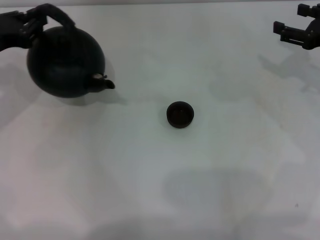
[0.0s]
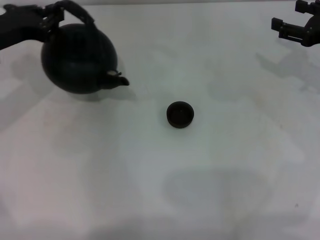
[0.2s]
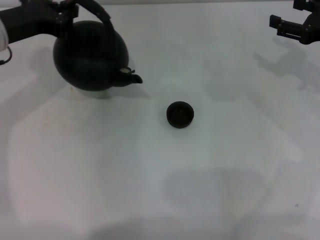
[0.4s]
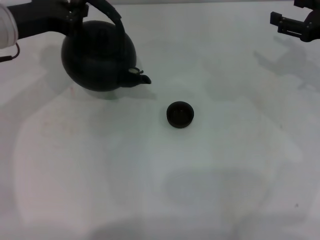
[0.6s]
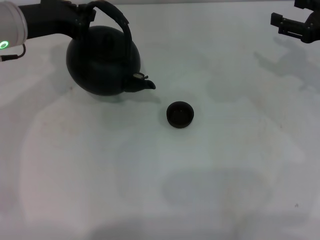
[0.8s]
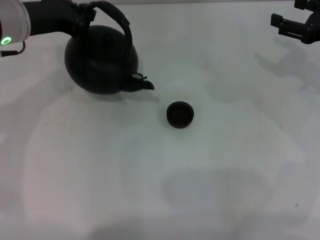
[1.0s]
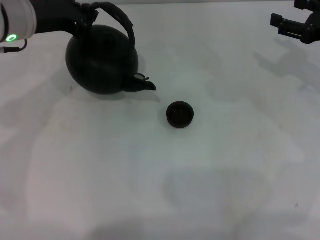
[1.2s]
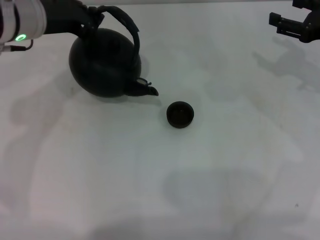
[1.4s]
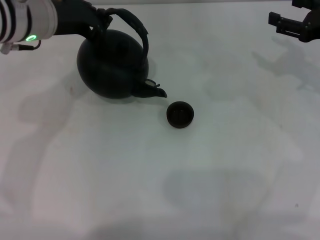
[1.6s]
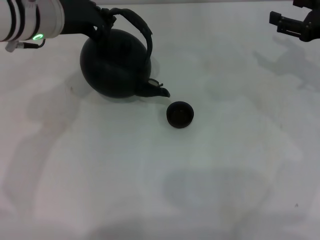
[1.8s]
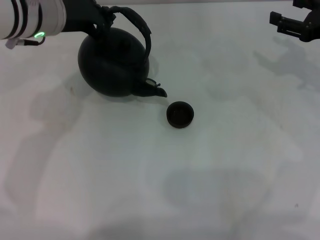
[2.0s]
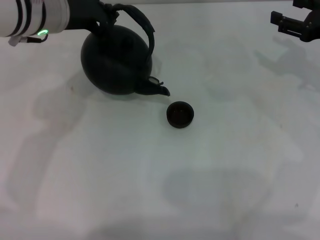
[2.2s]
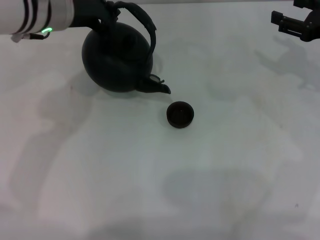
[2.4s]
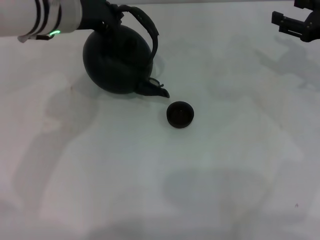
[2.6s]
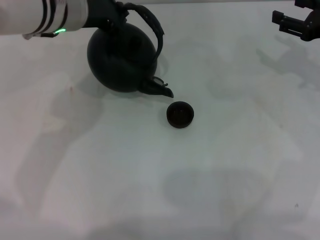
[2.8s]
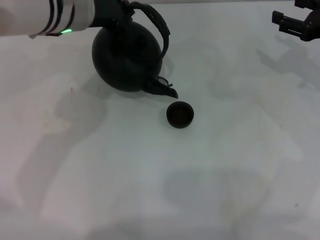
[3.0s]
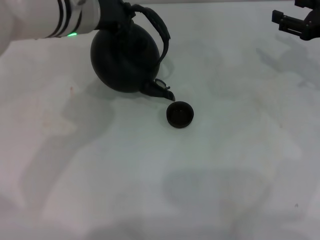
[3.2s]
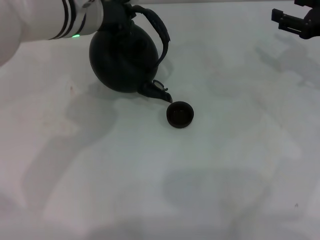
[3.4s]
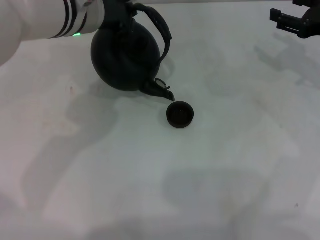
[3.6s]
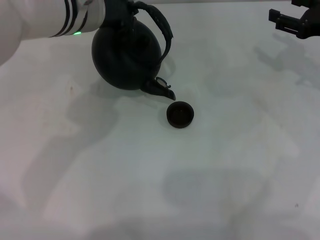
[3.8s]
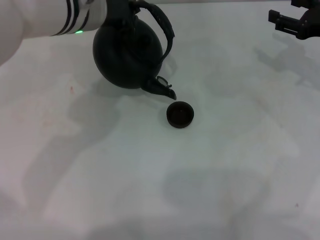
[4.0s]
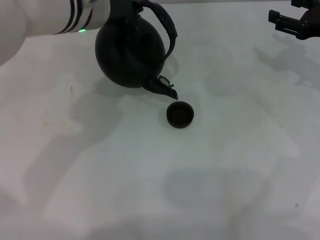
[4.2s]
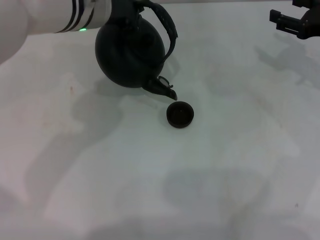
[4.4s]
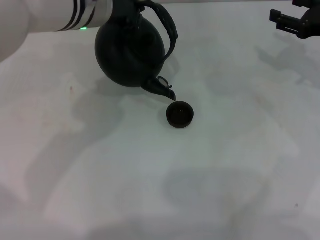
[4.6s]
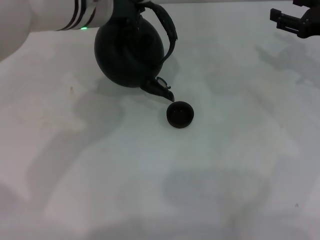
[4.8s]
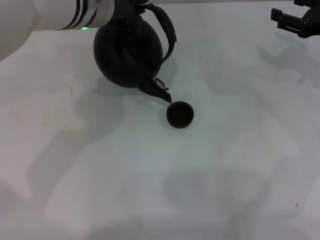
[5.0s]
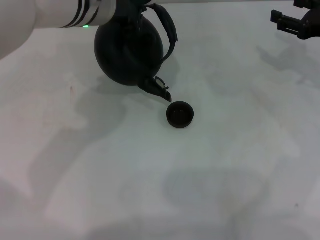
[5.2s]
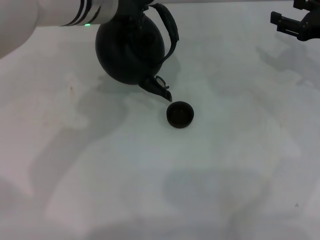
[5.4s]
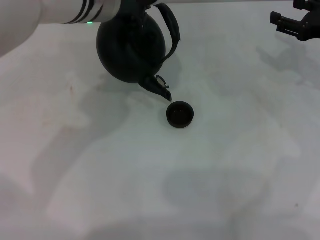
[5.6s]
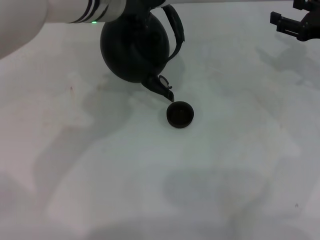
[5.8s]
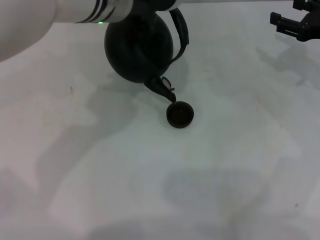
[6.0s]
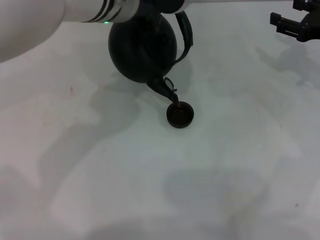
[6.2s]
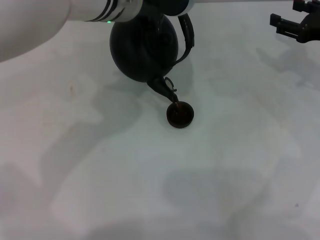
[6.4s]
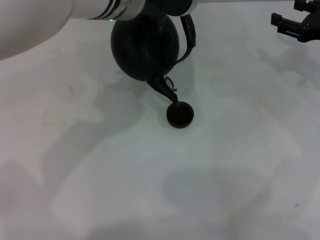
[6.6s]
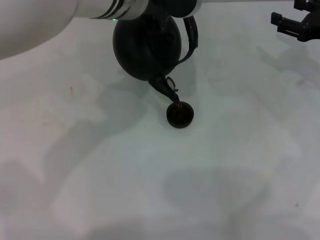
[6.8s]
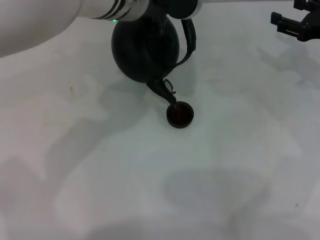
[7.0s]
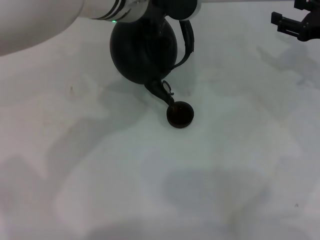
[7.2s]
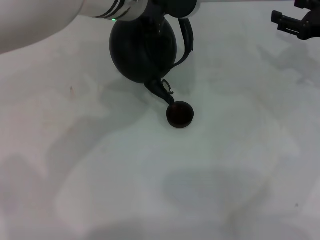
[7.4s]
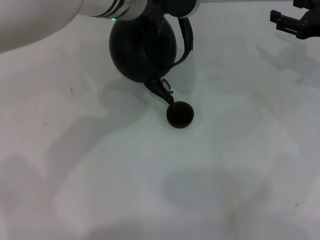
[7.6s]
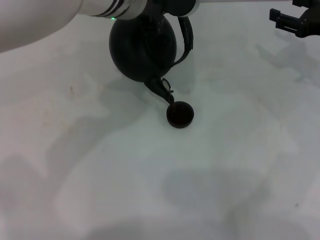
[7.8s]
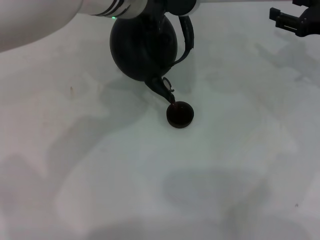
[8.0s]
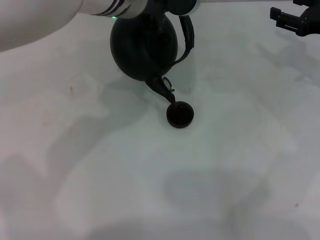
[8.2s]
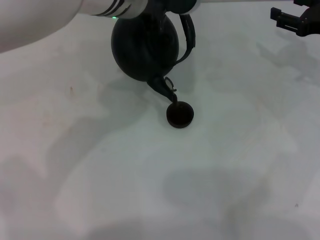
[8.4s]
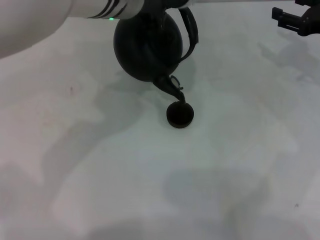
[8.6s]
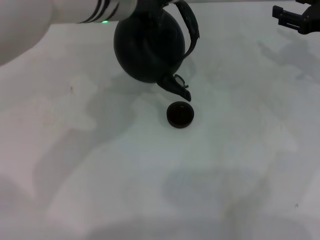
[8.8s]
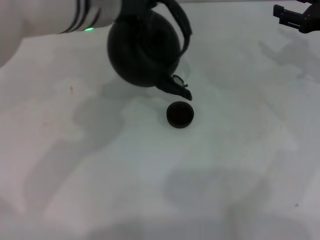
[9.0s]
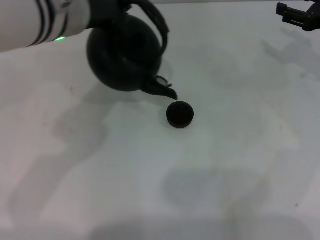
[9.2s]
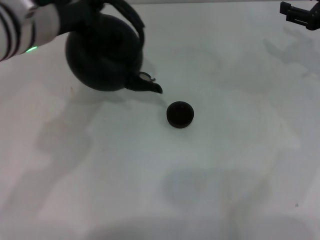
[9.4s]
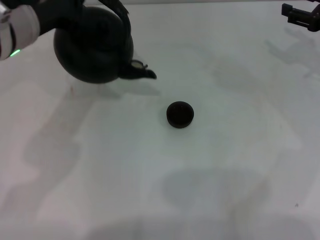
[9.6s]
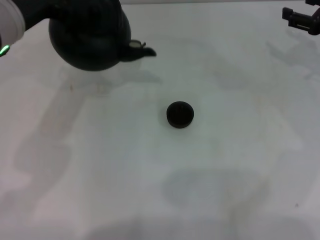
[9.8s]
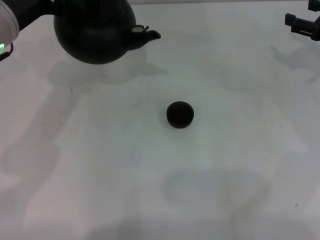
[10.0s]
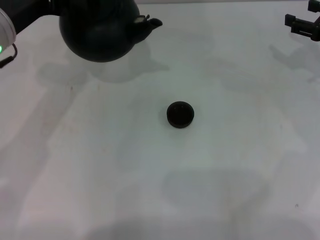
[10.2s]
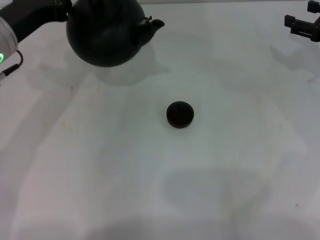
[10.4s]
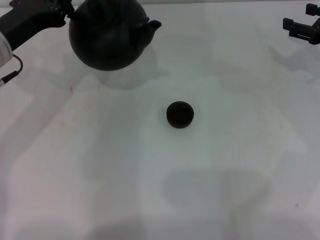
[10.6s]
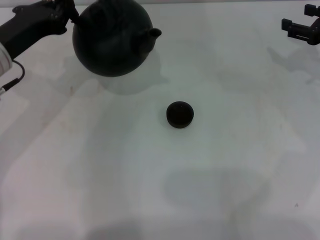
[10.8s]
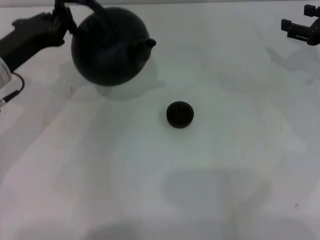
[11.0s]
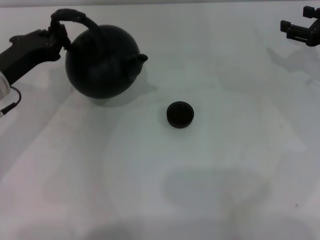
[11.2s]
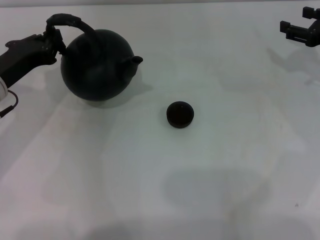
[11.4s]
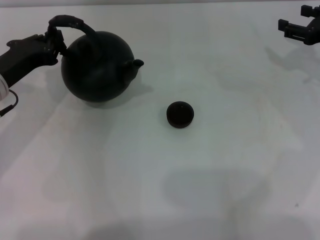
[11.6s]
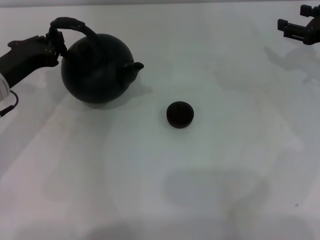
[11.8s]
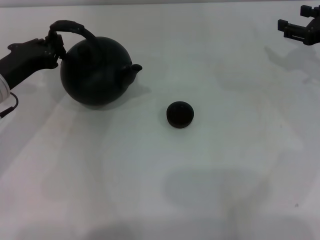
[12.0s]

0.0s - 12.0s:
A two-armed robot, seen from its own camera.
Task of the whole recording: Grasp the handle of the teapot with one hand and pour tea into the teacup.
Step, 0.8s - 9.0s: Pour tea into the teacup with the left gripper.
0.0s - 1.6s: The left gripper moves to the right and upward, roughly 15 cm.
1.6s - 3.0s: The left gripper goes approximately 5 cm to the right.
3.0s - 4.4s: The grippers make only small movements.
4.4s - 6.0s: The grippers move only a little.
6.0s - 7.6s: There are only small adjustments of the grippers.
7.6s - 9.0s: The left gripper changes place by about 5 cm.
9.0s - 10.4s: The left gripper is displaced to the left and downward by approximately 15 cm.
10.4s - 12.0s: The left gripper heads downward, covering some 5 cm.

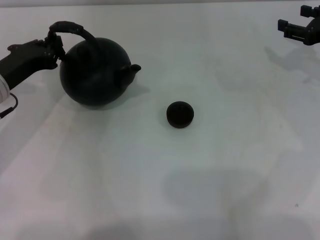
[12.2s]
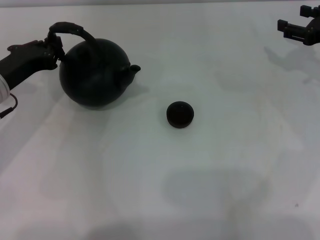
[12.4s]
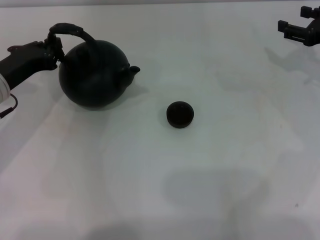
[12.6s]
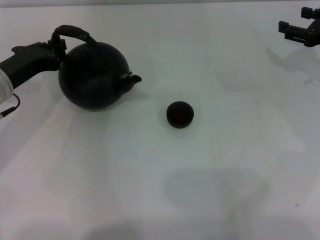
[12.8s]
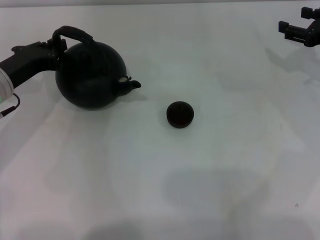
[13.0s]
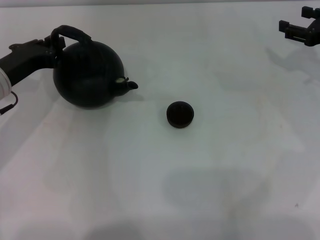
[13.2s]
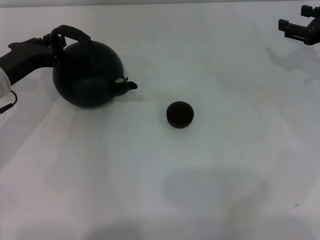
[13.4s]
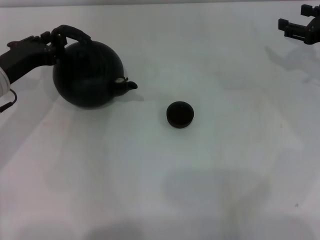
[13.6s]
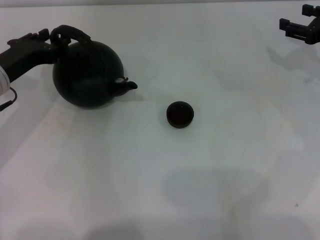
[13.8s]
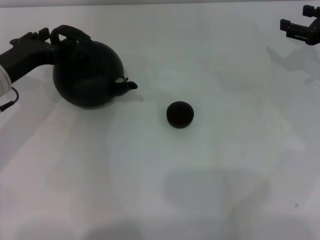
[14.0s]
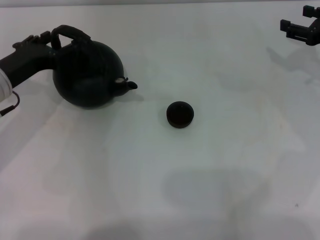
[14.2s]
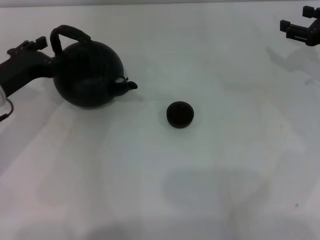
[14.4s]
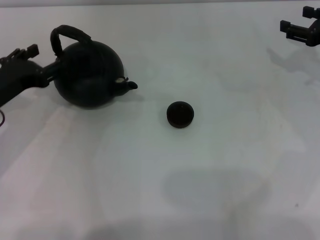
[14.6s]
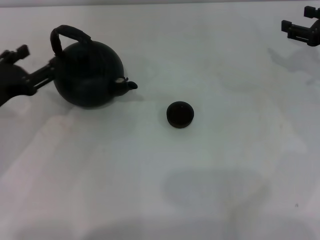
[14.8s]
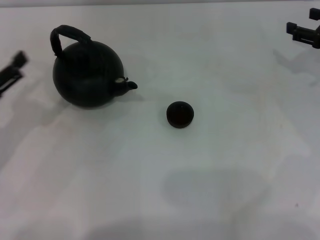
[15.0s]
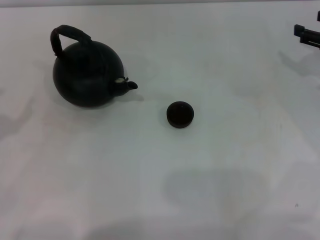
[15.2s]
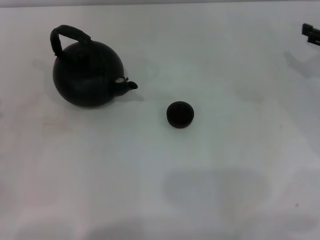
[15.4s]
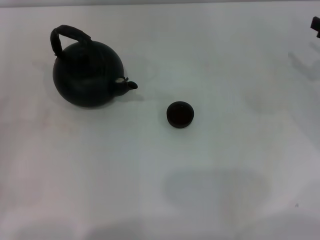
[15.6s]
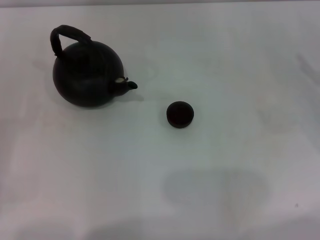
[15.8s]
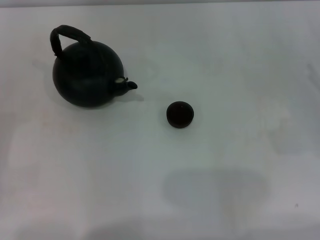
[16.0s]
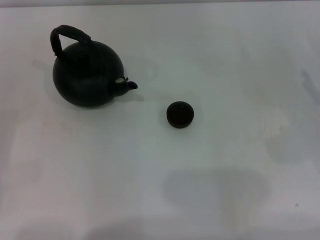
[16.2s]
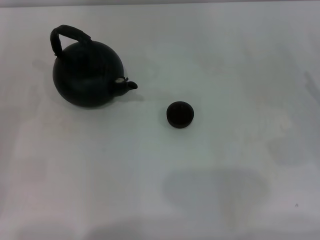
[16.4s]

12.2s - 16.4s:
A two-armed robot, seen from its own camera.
Task of the whole recording: Grasp the handle of the teapot with one hand and pour tea into the teacup.
Step, 12.2s - 14.2s: Put down the teapot with the left gripper.
12.2s - 13.6s: The two grippers keep their place.
13.6s - 15.0s: The left gripper goes roughly 10 cm backward and to the left, and opens its fingers.
15.0s - 16.4s: The left gripper moves to the left, roughly 10 cm; the right gripper moves backward and downward, roughly 15 cm.
